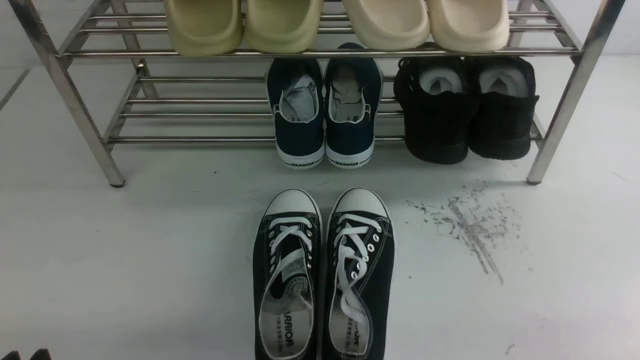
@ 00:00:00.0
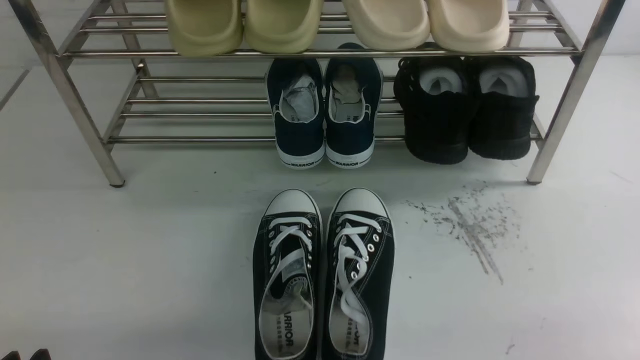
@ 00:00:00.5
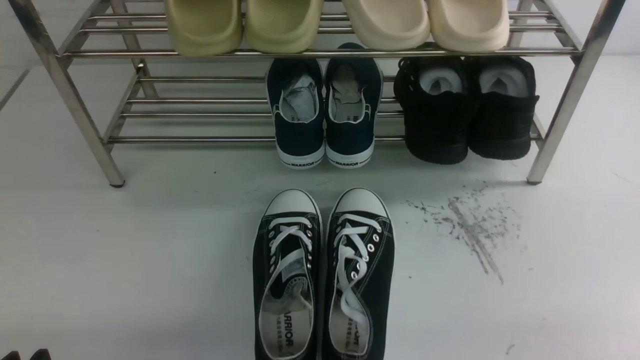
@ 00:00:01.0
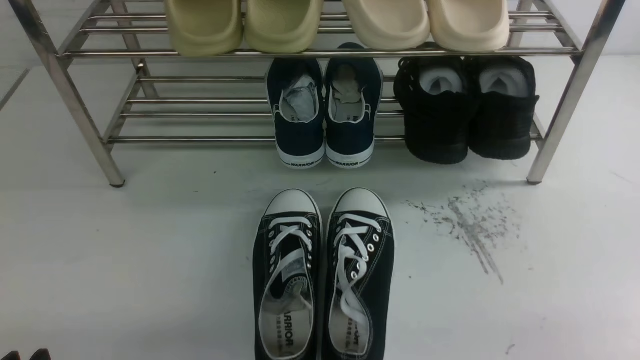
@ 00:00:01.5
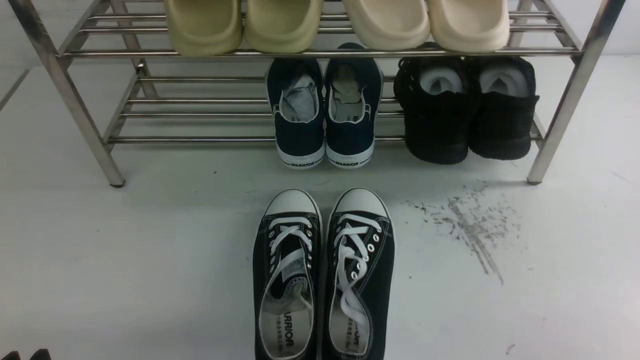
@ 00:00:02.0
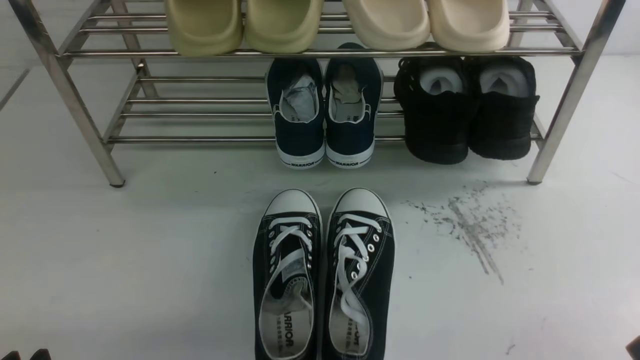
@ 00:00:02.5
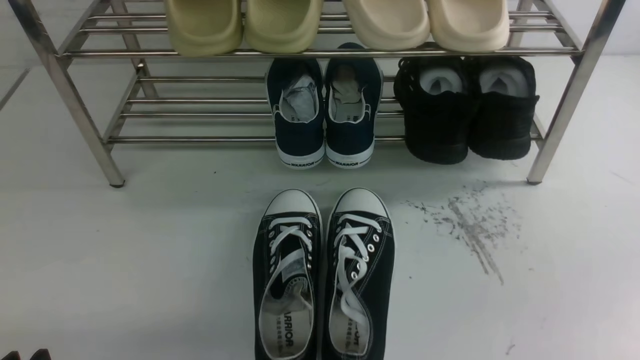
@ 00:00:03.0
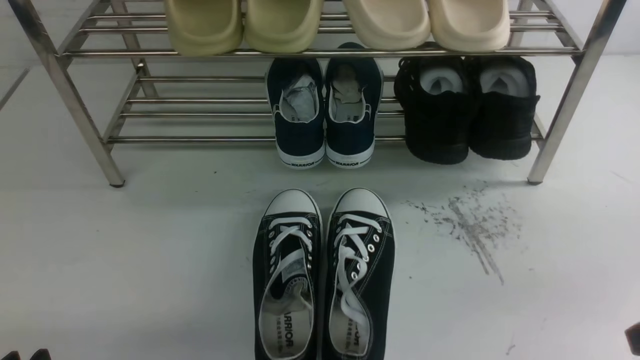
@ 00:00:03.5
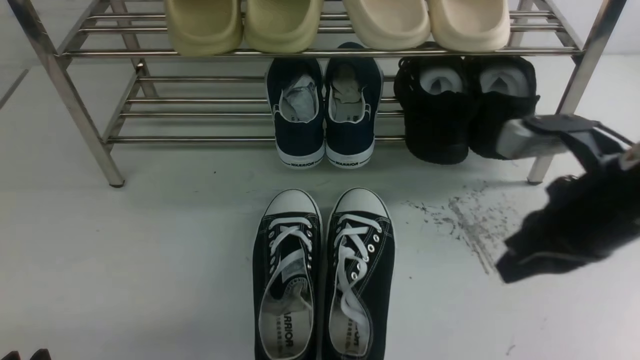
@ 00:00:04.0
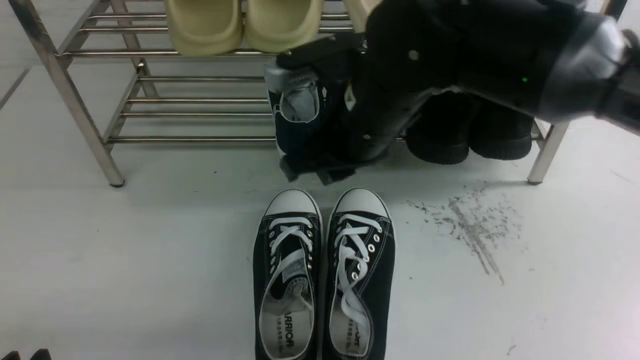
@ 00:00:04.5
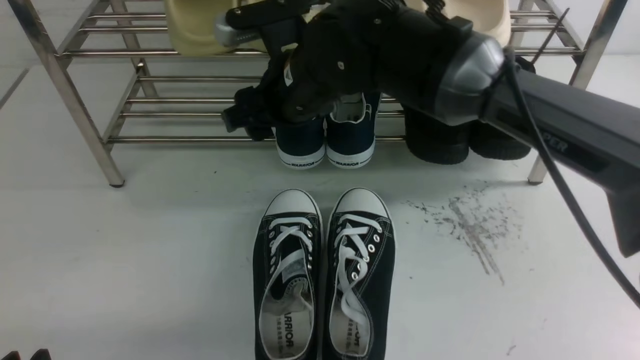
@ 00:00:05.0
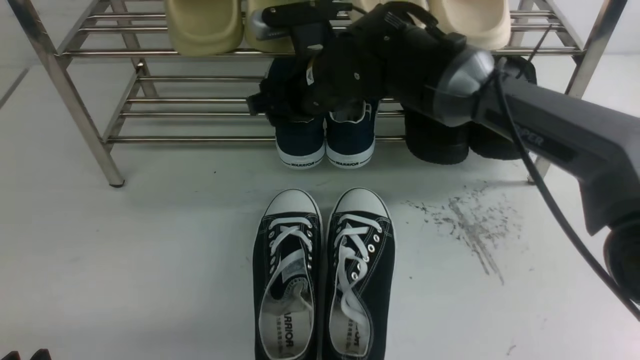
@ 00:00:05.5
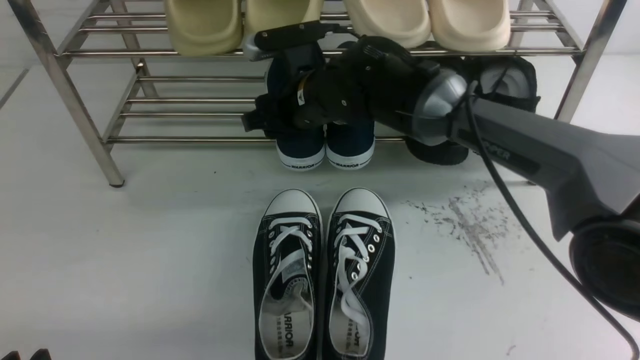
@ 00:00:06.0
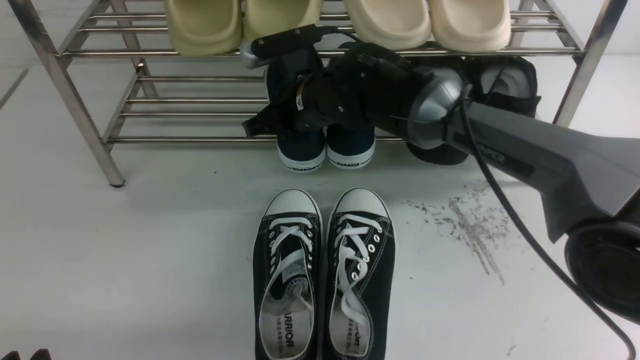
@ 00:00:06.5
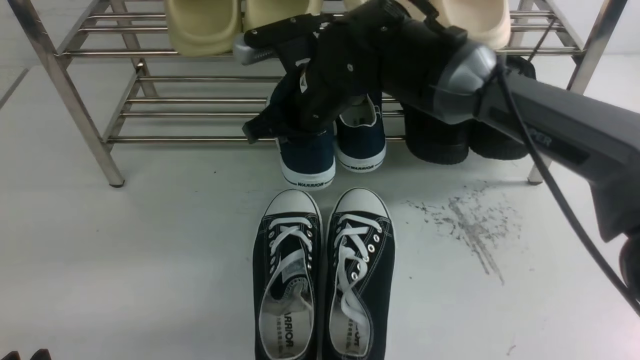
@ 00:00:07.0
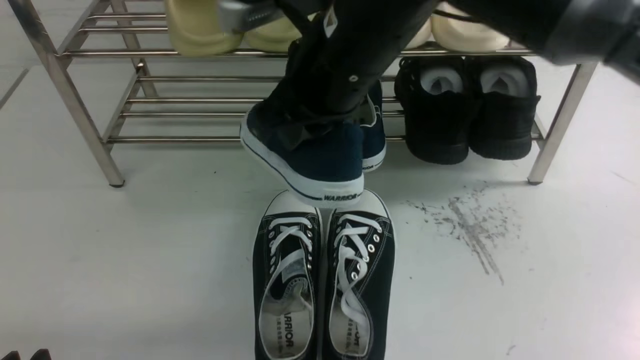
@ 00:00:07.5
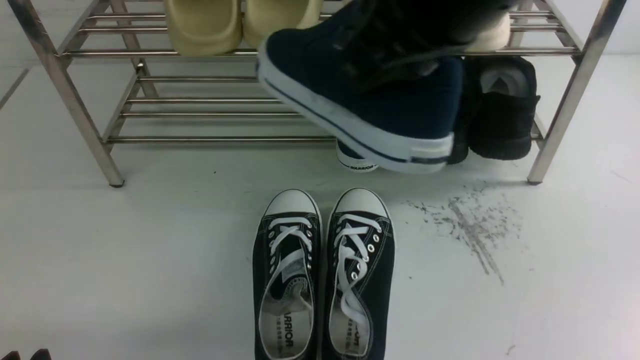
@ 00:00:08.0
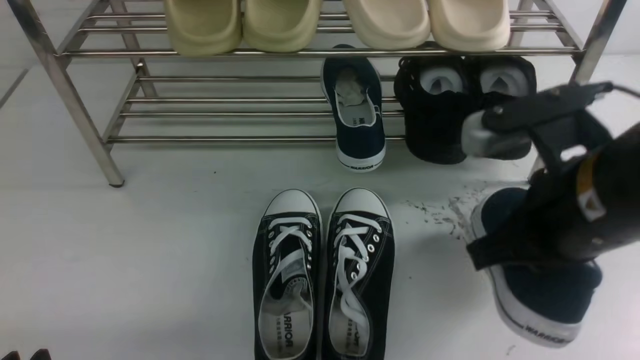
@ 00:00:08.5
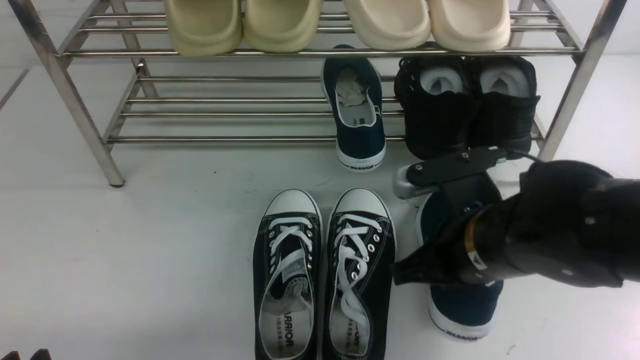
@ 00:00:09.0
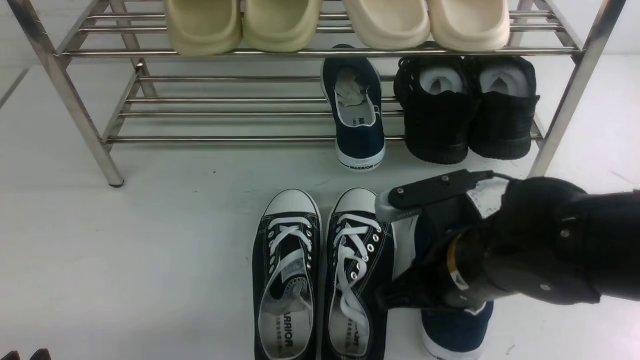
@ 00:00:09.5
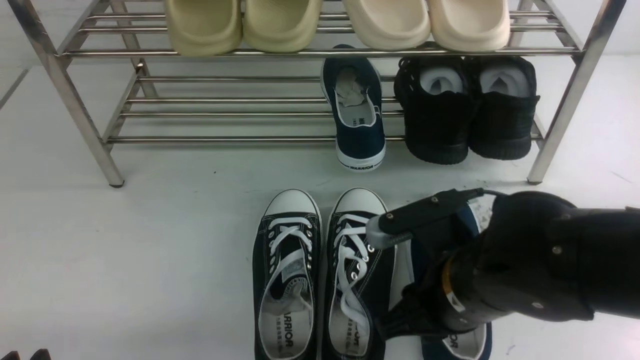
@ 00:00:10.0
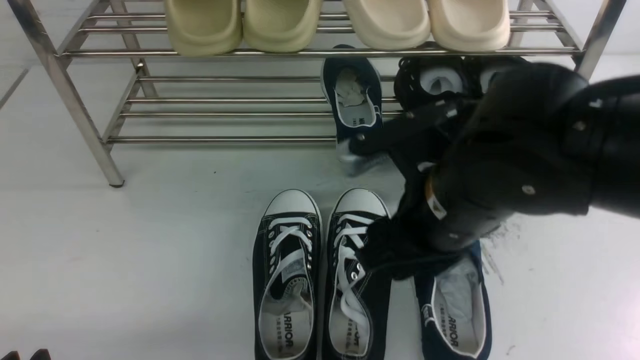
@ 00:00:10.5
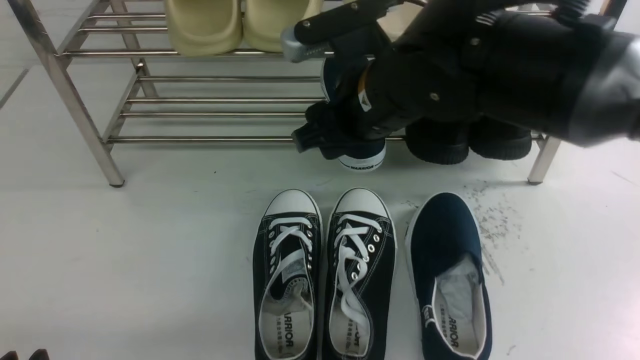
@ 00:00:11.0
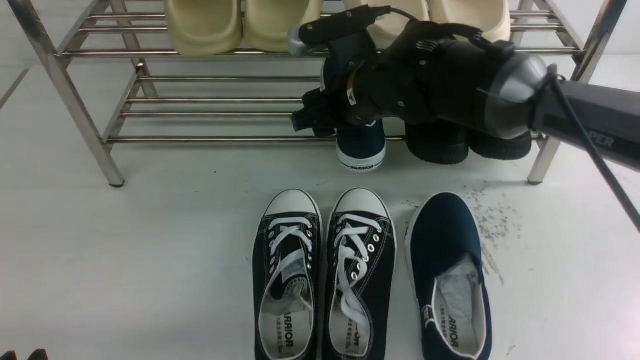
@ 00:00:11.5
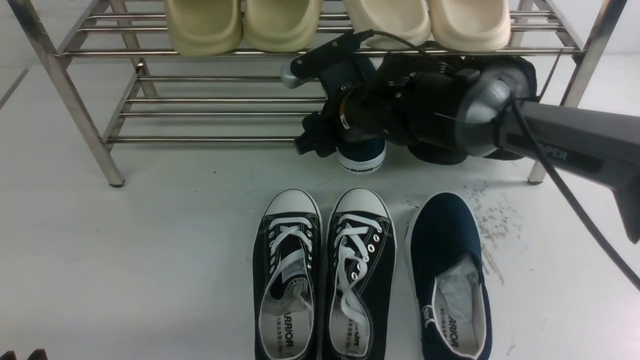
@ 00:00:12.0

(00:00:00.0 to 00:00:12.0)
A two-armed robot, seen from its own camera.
Step, 00:00:00.0 - 00:00:07.0: use the right arm to clamp a shoe in the middle of the shoe rack.
Step, 00:00:07.5 - 00:00:10.5: use the right arm to take out the clamped shoe from the shoe rack and put it down.
00:00:02.0 - 00:00:04.0: The right gripper shifts some 25 cm forward, upward and to the left, and closes its fingers.
00:00:04.0 - 00:00:06.0: The right gripper moves to the left and forward, about 30 cm, and opens.
00:00:06.0 - 00:00:08.0: The right gripper shifts approximately 30 cm upward, backward and to the right, and closes up.
00:00:08.0 - 00:00:10.0: The right gripper moves downward, some 25 cm, and opens up.
00:00:10.0 - 00:00:12.0: The right gripper goes some 20 cm forward.

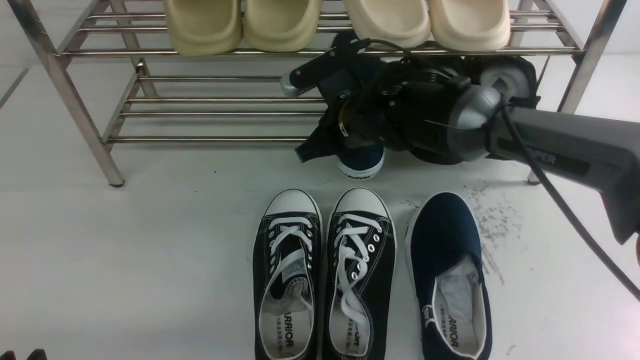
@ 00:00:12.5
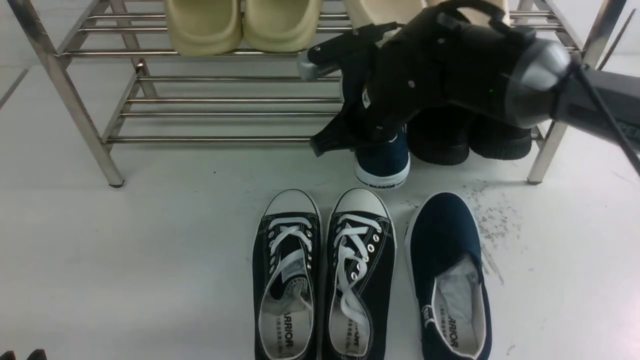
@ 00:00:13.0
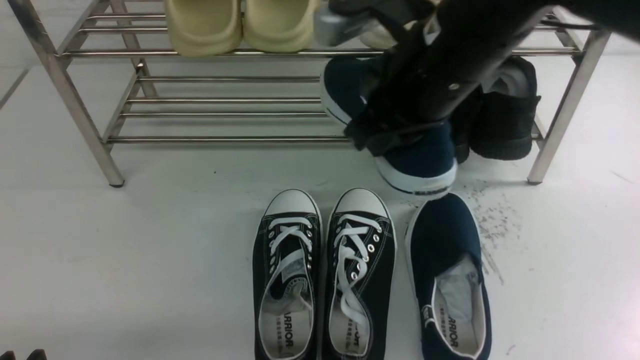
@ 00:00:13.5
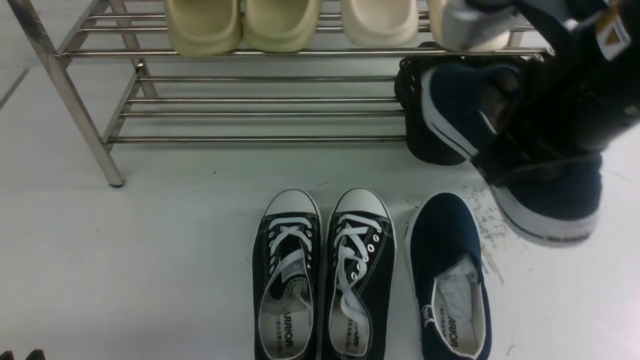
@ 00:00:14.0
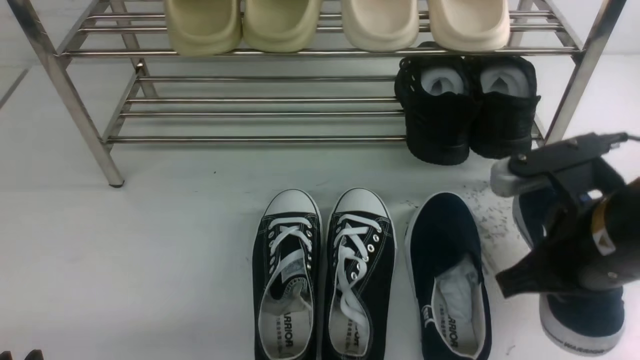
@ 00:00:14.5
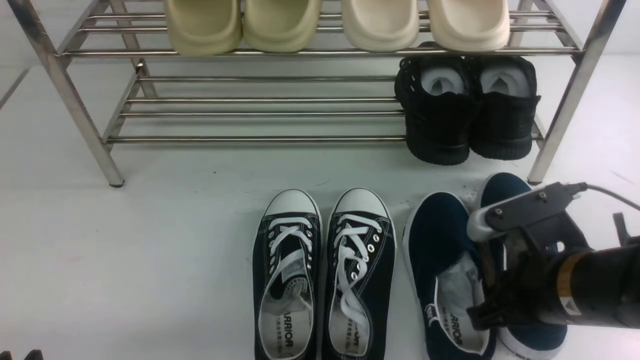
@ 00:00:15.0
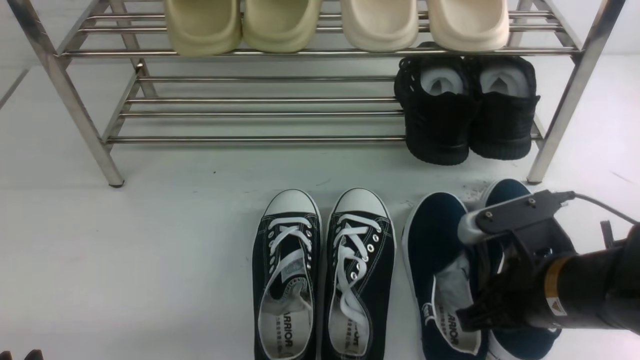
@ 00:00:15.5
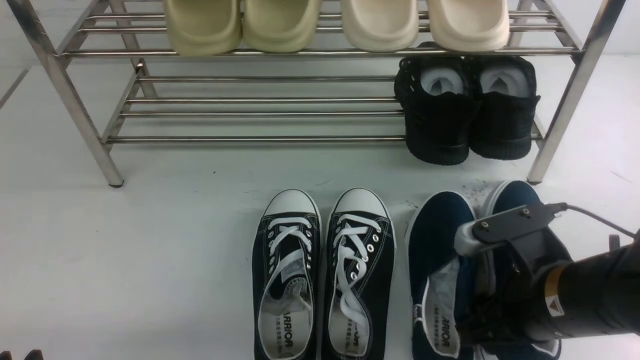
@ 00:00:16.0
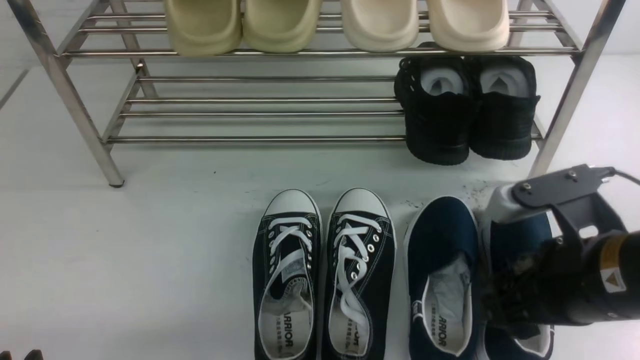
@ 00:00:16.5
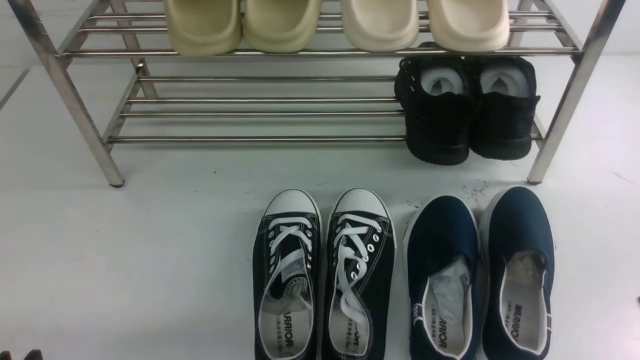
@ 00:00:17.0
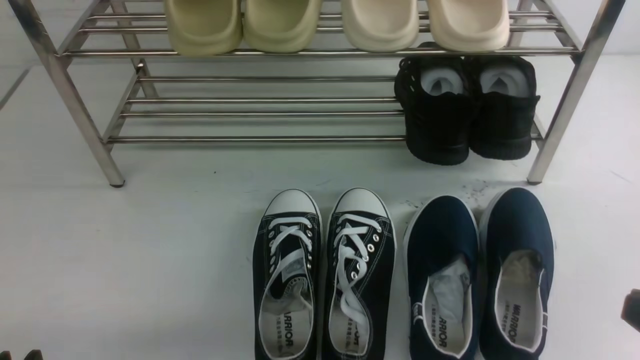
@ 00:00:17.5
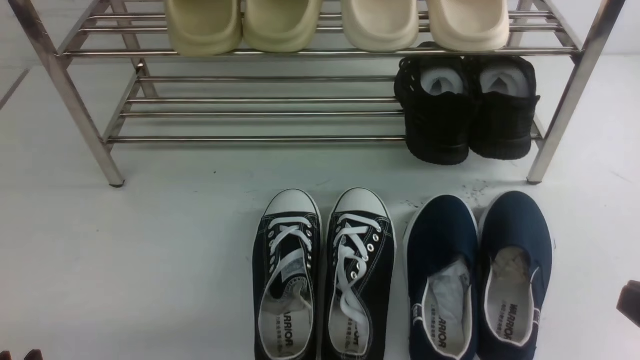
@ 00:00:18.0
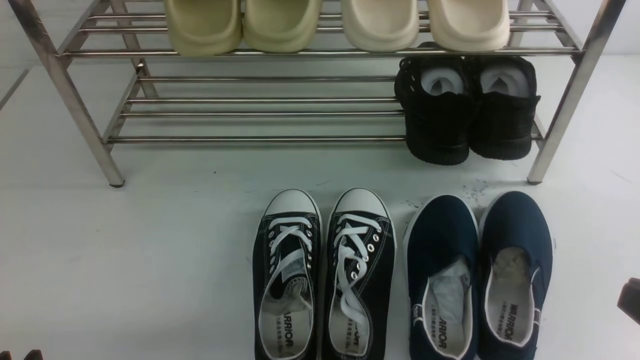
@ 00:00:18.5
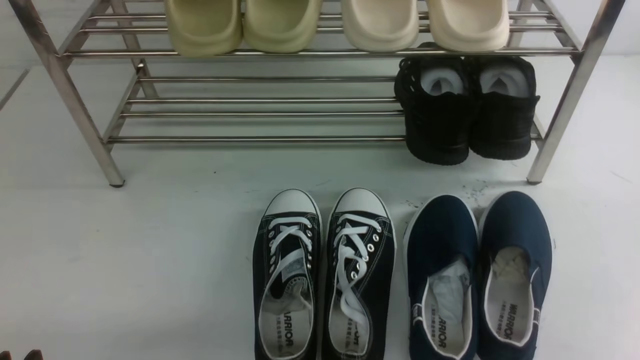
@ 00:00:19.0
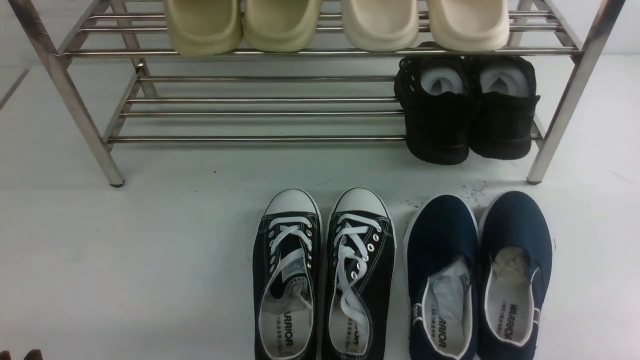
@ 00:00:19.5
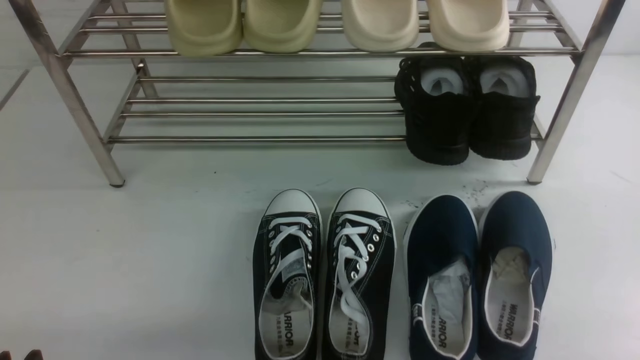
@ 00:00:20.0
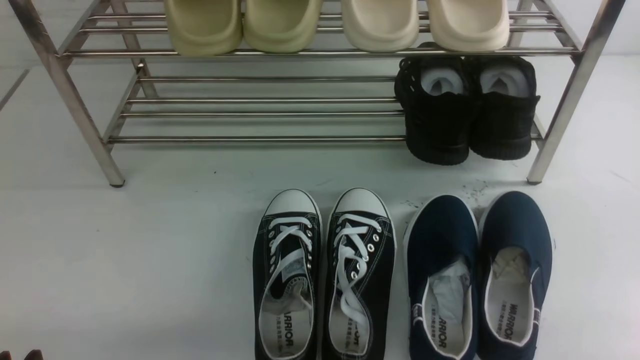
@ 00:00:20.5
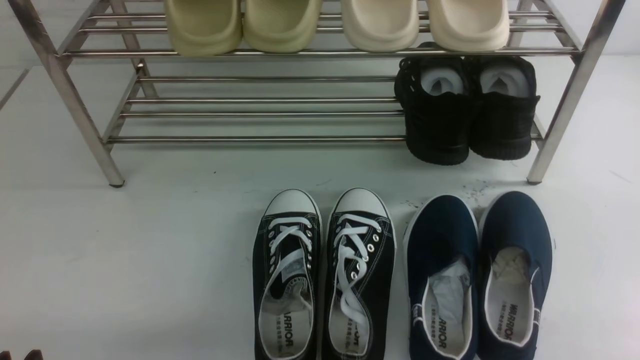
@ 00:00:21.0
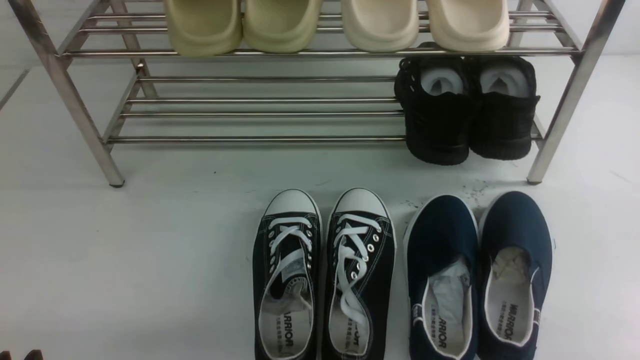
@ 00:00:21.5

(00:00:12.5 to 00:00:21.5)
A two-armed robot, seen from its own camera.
Step, 00:00:13.5 - 00:00:16.0: use the right arm to take out the clamped shoe from the shoe rack and put it down.
00:00:12.5 - 00:00:14.5: The right gripper is displaced backward and to the right by some 25 cm.
00:00:14.5 - 00:00:17.0: The right gripper heads backward, upward and to the right, covering some 15 cm, and opens, then closes again.
00:00:17.0 - 00:00:19.5: The right gripper goes roughly 15 cm downward and to the right.
00:00:19.5 - 00:00:21.5: Both grippers stay put.
